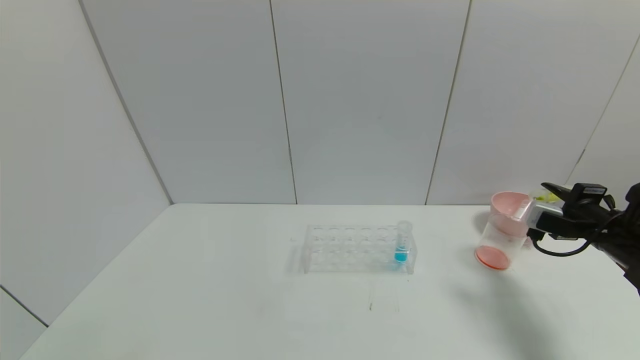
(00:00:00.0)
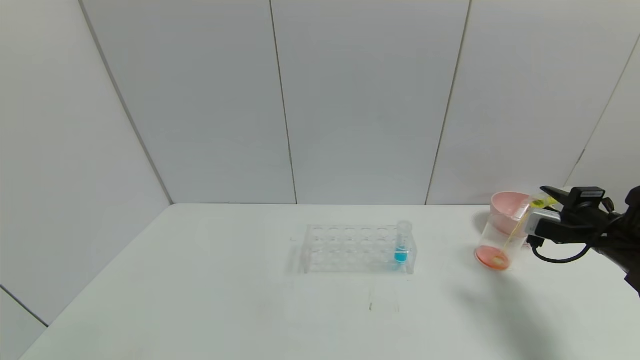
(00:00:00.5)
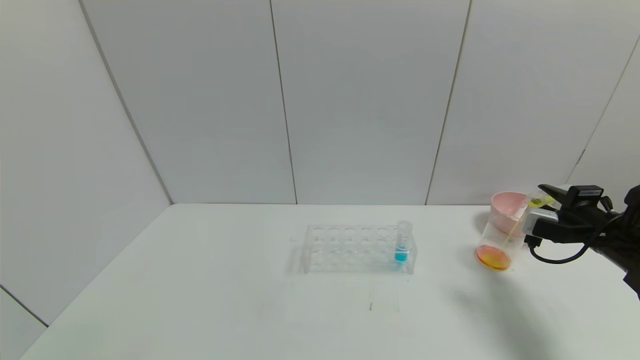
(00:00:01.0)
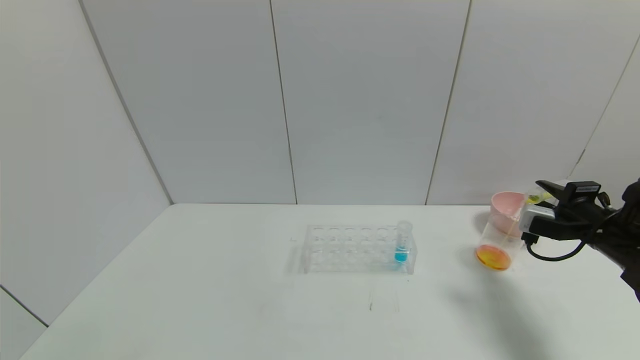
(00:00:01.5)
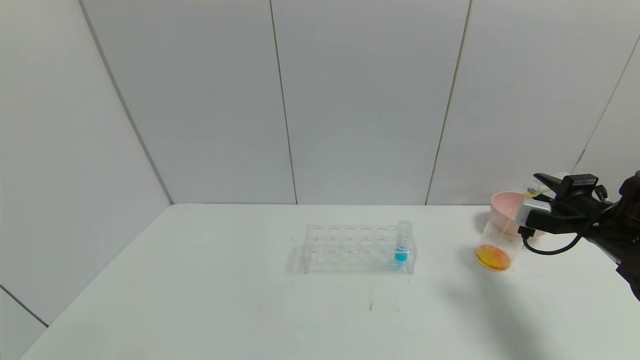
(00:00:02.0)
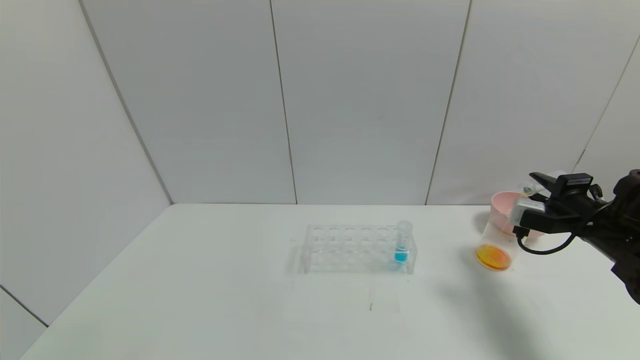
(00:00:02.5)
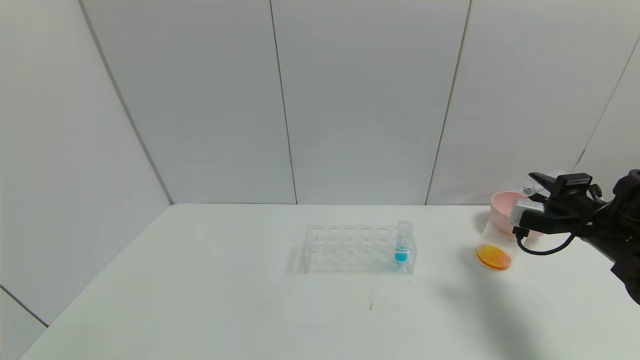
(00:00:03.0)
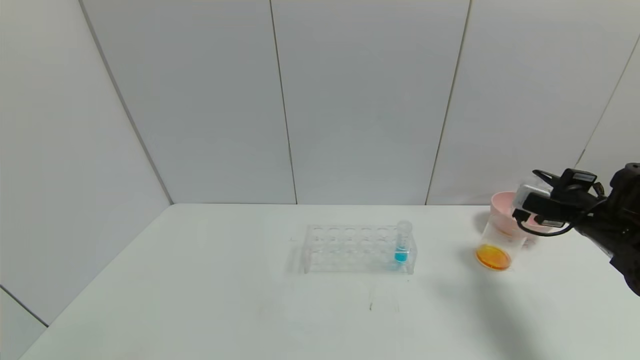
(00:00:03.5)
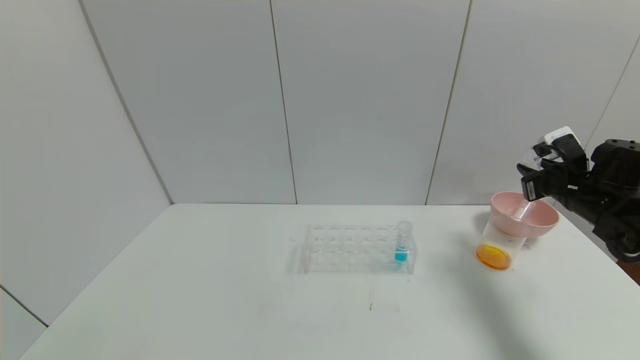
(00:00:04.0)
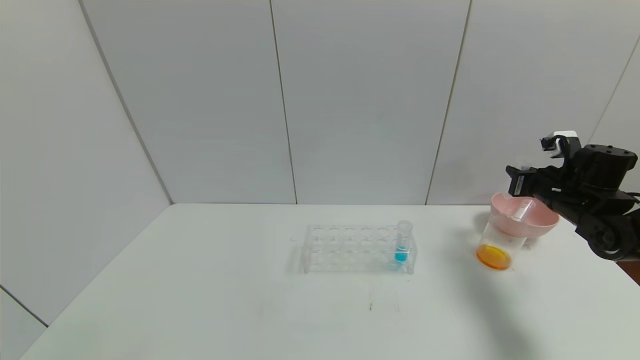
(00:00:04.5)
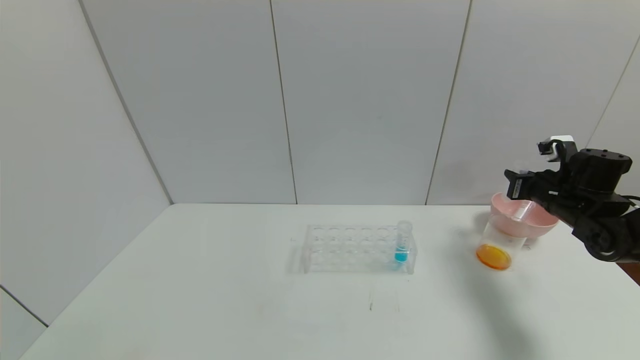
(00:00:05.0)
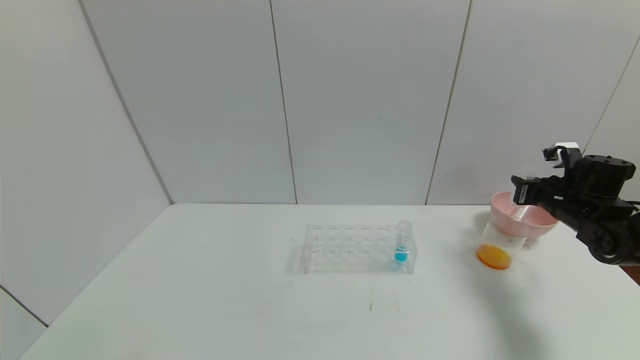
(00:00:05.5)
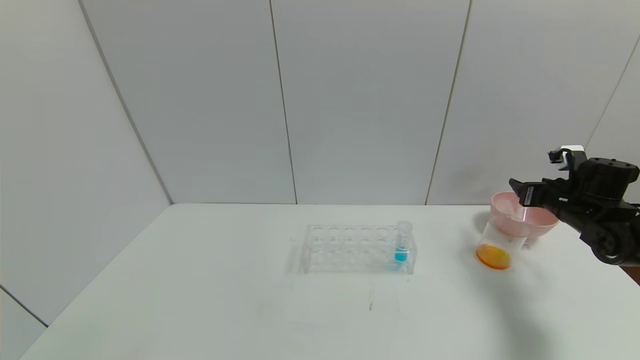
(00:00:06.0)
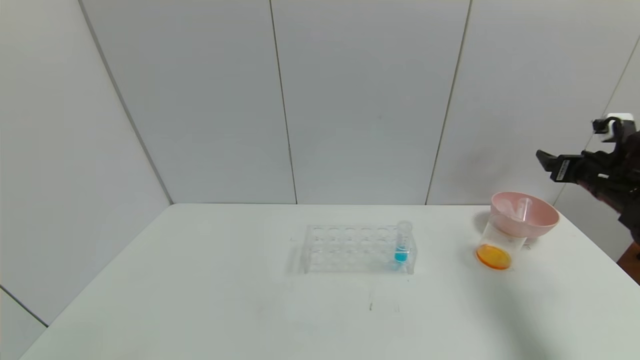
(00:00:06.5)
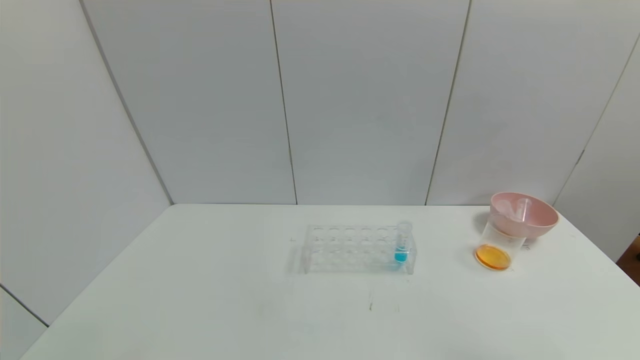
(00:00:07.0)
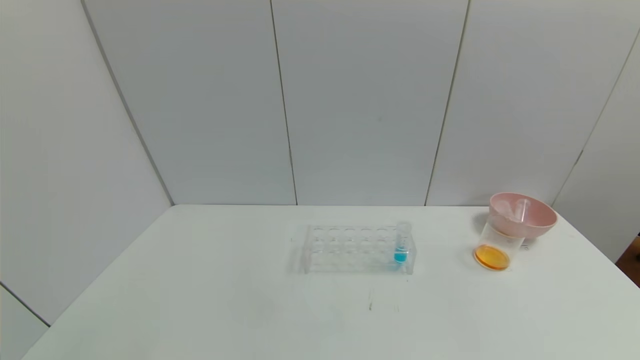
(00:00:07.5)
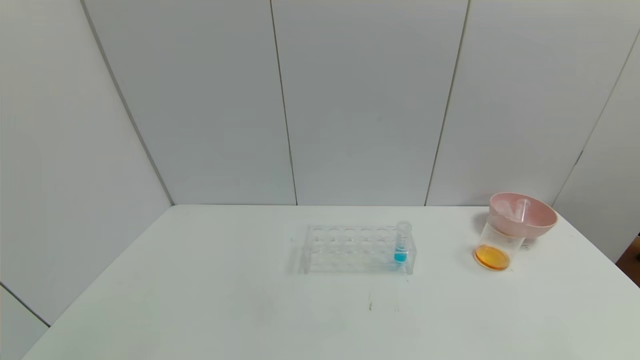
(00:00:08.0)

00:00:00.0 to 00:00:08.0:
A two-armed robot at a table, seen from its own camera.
Task of the whole recording: pick up the test tube with yellow pigment and the test tube with red pigment by grippers and pour them into the beaker.
Step, 00:00:00.0 to 00:00:02.5: Pour the yellow reagent into the graduated cylinder with the right gripper.
Step, 00:00:03.0 to 00:00:06.0: Place the test tube into the pink bowl with the right gripper.
00:00:00.0 to 00:00:02.0: The grippers make only small movements.
00:00:02.0 to 00:00:04.0: The right gripper shifts about 5 cm forward.
00:00:04.0 to 00:00:06.0: The right gripper changes place by some 5 cm, and opens its fingers.
00:00:06.0 to 00:00:08.0: The right gripper goes approximately 40 cm backward.

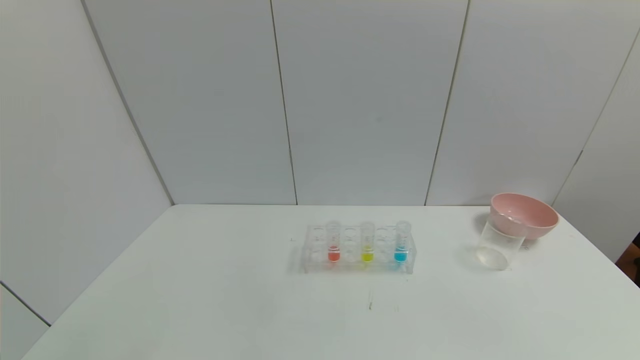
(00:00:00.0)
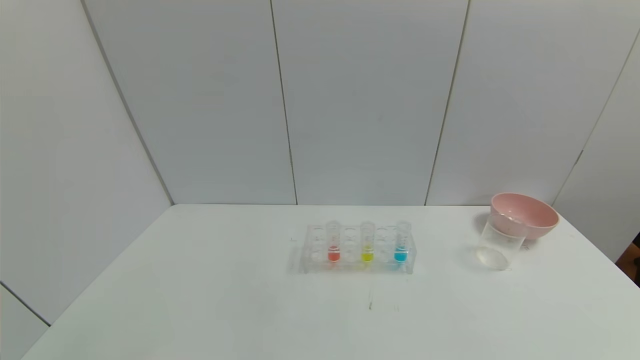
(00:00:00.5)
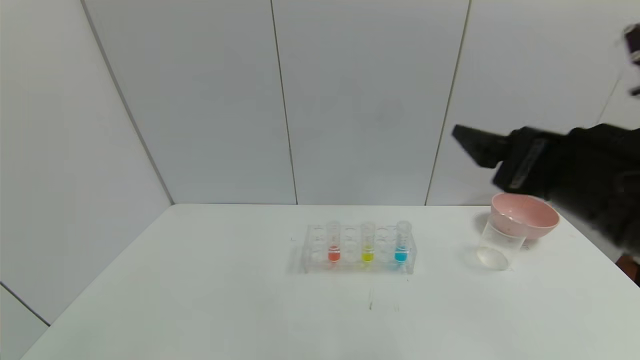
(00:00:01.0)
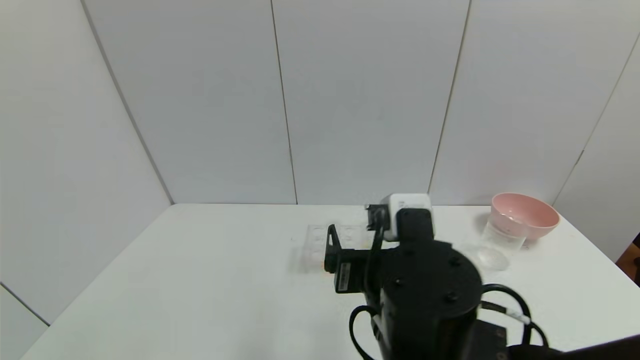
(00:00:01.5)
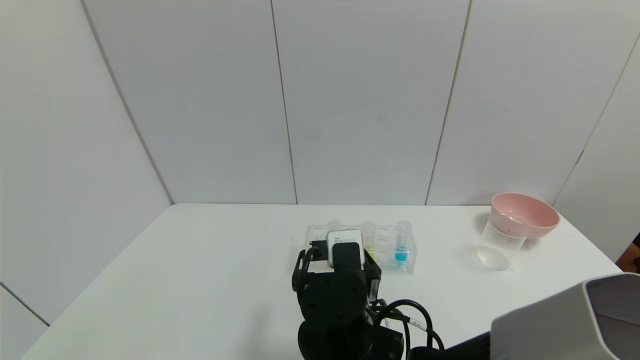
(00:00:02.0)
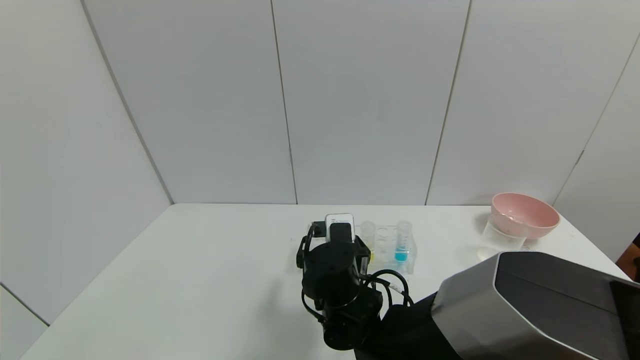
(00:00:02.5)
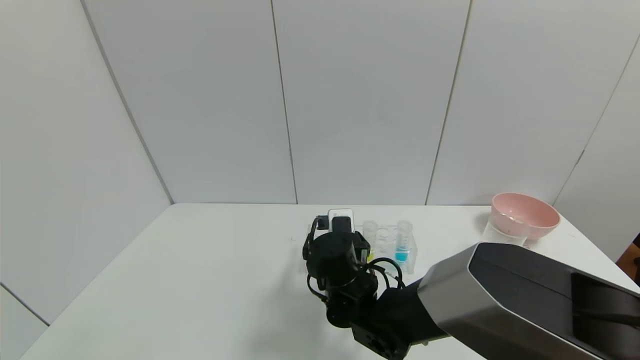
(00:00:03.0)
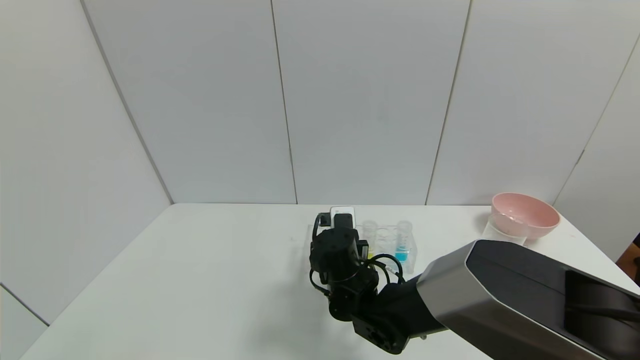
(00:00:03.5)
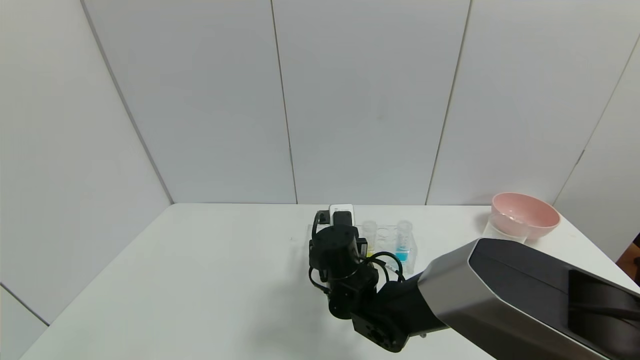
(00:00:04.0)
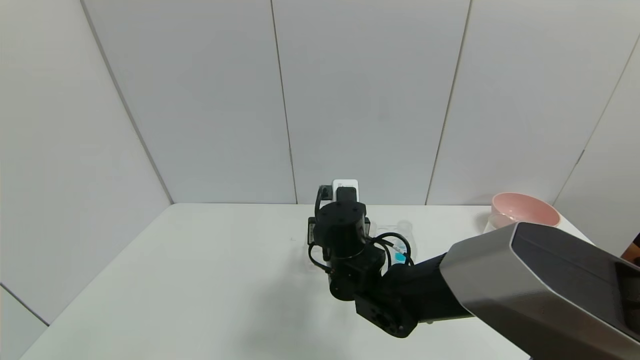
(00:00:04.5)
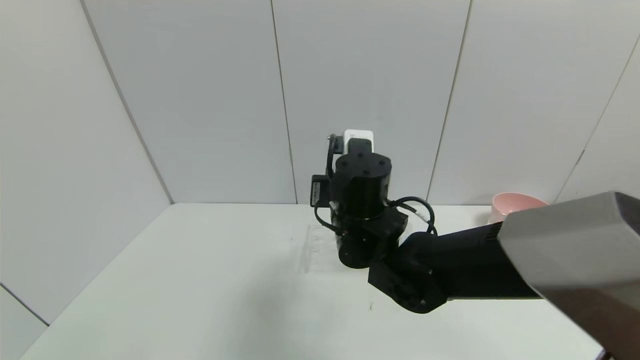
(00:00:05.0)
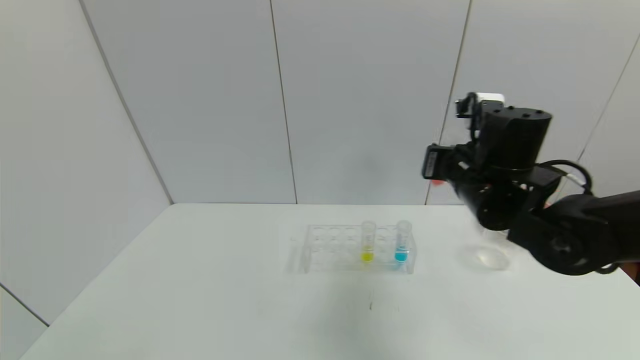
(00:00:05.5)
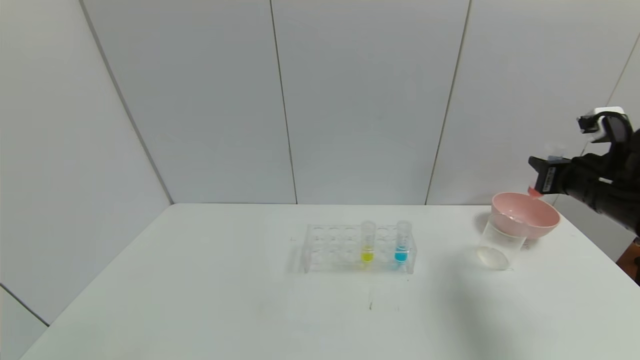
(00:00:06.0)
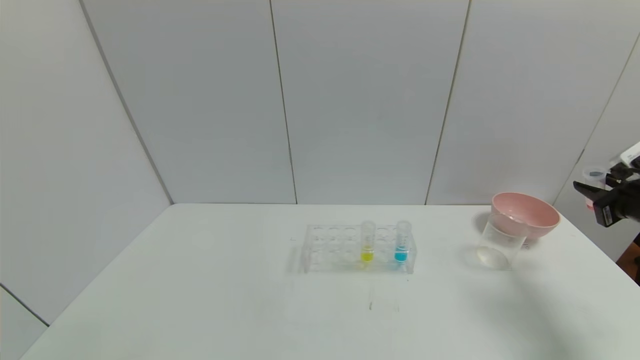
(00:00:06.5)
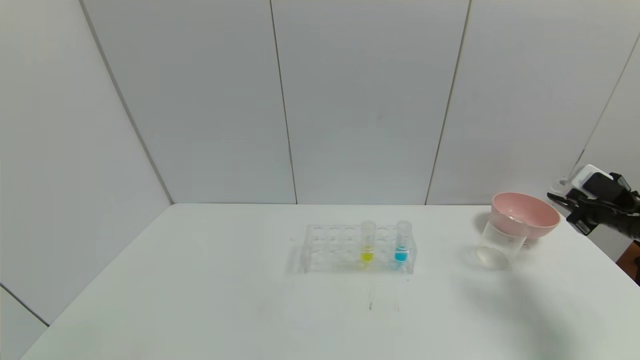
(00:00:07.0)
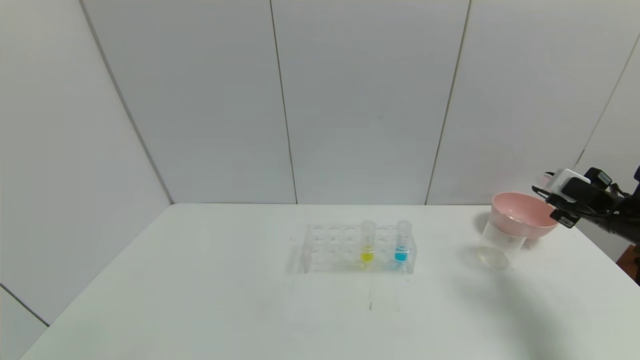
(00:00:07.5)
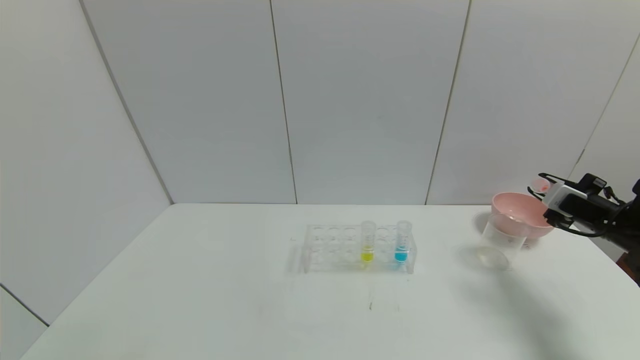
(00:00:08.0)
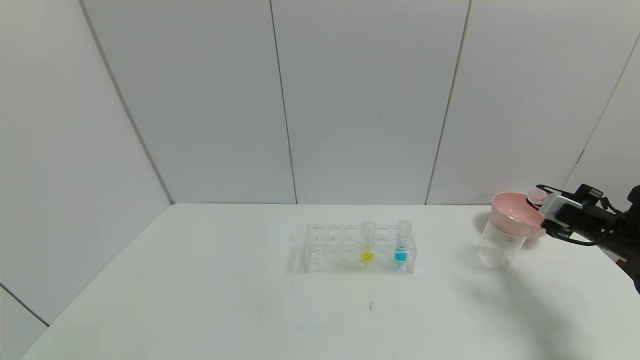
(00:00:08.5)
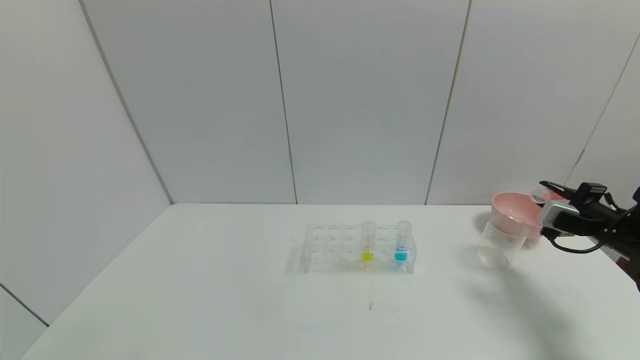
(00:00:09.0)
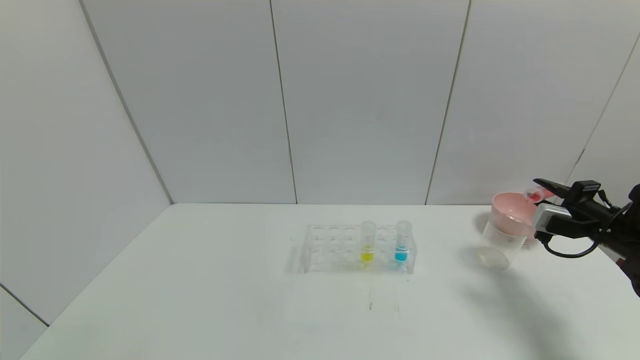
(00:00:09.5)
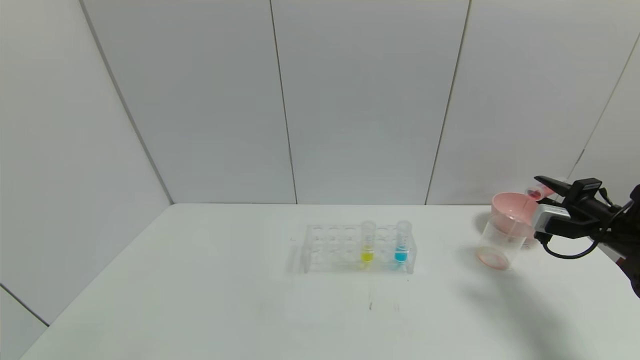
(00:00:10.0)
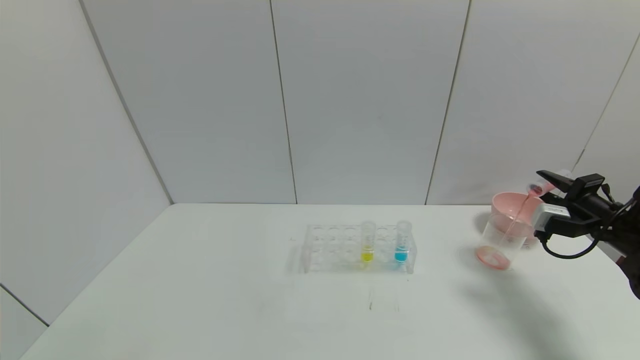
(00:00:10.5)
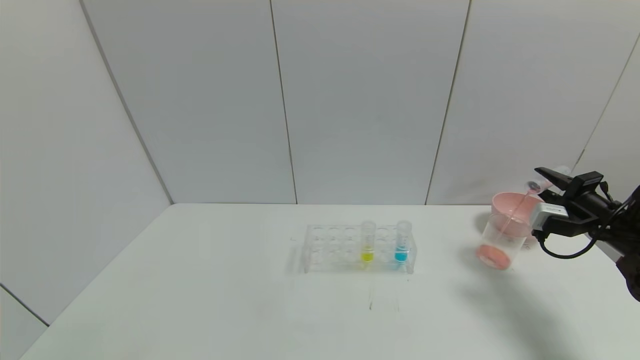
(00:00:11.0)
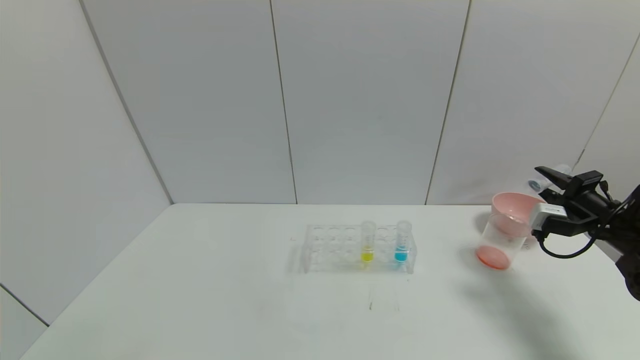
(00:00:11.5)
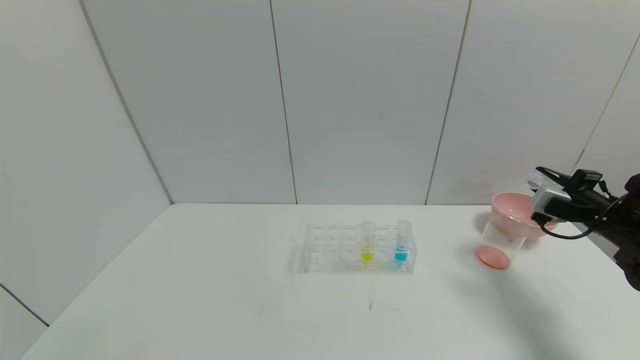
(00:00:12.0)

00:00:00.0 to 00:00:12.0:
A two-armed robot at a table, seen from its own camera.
Task of the whole recording: pick up the test tube with yellow pigment and the test tube with red pigment by grippers and pour them into the beaker.
Step, 00:00:00.0 to 00:00:05.5: Pick up the test tube containing the red reagent with right gripper.
00:00:00.0 to 00:00:02.0: The right gripper is displaced to the left and forward by roughly 40 cm.
00:00:02.0 to 00:00:04.0: The right gripper moves forward, approximately 10 cm, and closes up.
00:00:04.0 to 00:00:06.0: The right gripper travels to the right and upward by some 40 cm.
00:00:06.0 to 00:00:08.0: The right gripper is displaced to the right and downward by some 10 cm.
00:00:10.0 to 00:00:12.0: The grippers move only a little.
